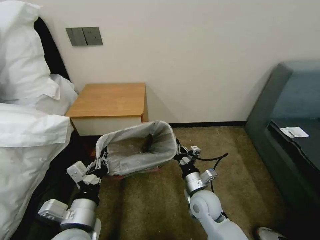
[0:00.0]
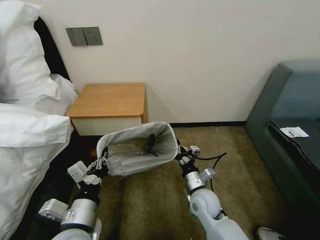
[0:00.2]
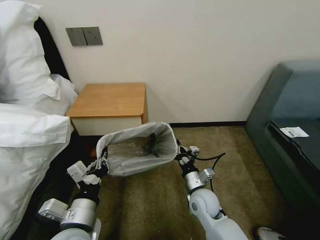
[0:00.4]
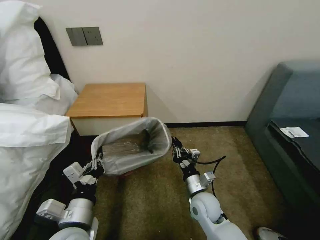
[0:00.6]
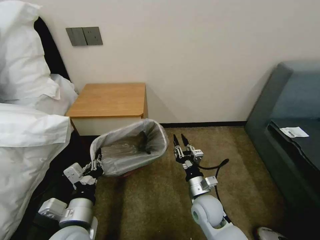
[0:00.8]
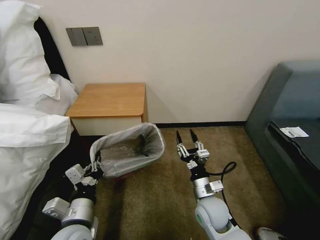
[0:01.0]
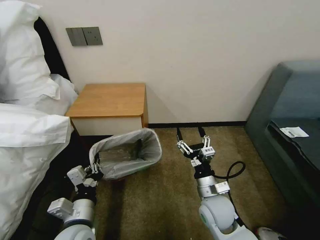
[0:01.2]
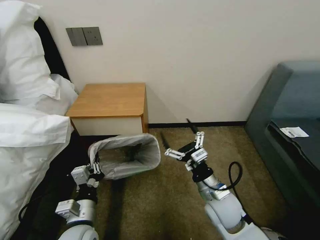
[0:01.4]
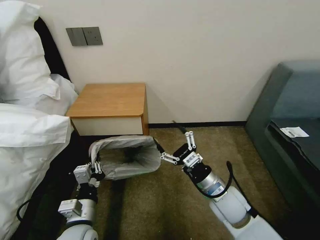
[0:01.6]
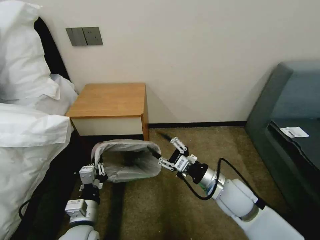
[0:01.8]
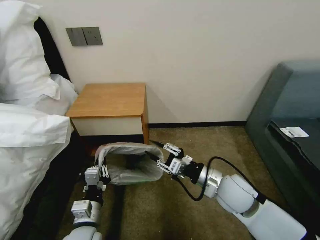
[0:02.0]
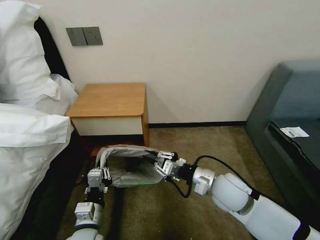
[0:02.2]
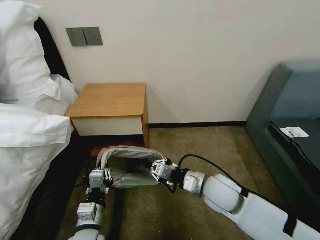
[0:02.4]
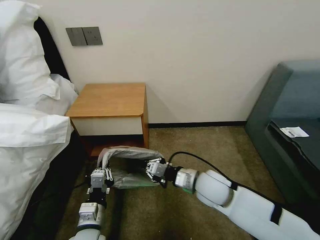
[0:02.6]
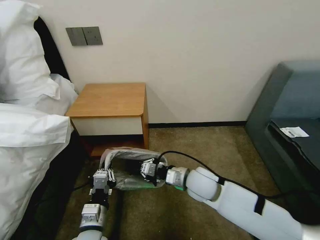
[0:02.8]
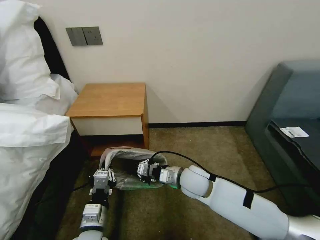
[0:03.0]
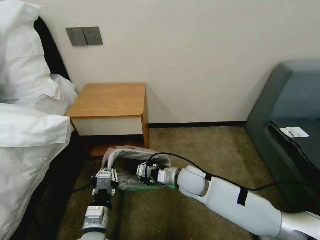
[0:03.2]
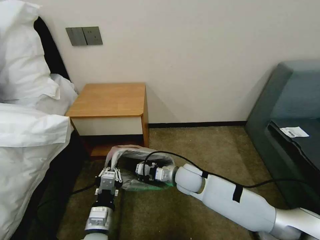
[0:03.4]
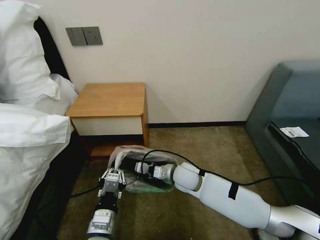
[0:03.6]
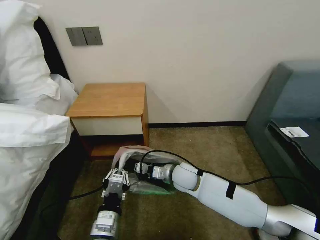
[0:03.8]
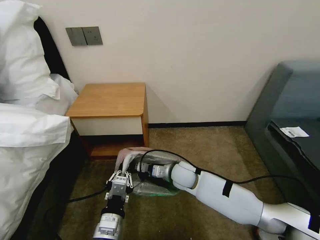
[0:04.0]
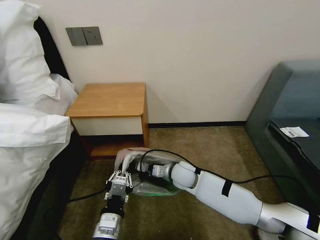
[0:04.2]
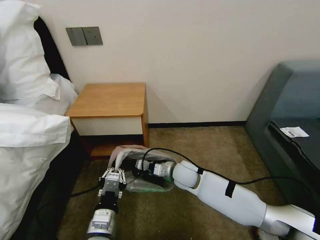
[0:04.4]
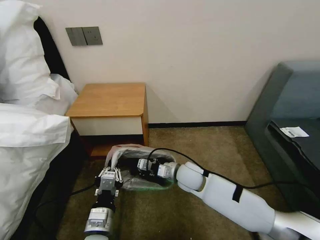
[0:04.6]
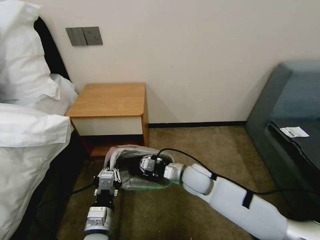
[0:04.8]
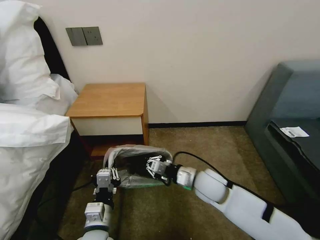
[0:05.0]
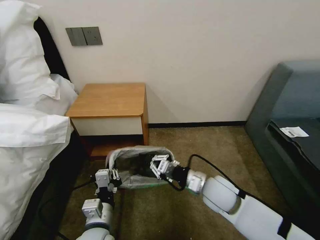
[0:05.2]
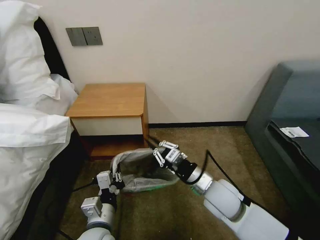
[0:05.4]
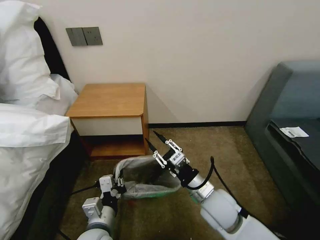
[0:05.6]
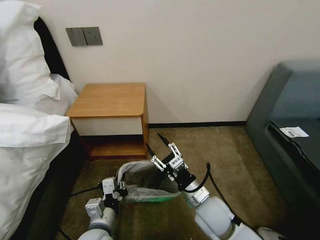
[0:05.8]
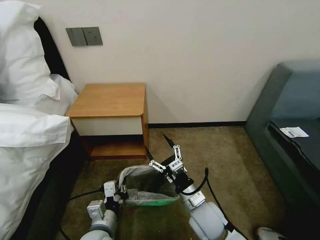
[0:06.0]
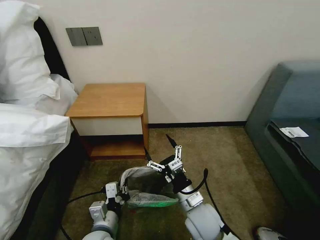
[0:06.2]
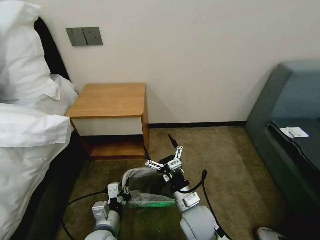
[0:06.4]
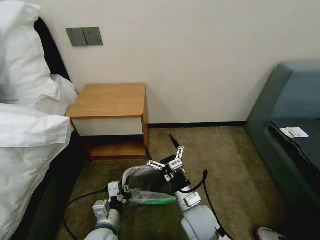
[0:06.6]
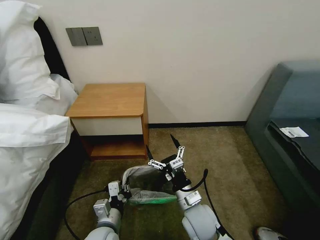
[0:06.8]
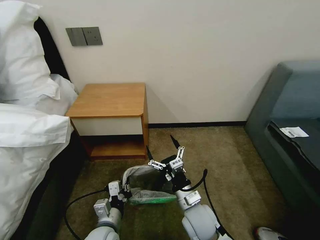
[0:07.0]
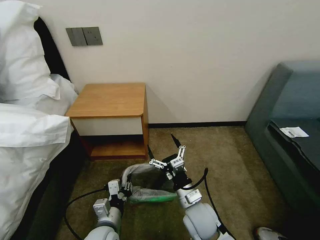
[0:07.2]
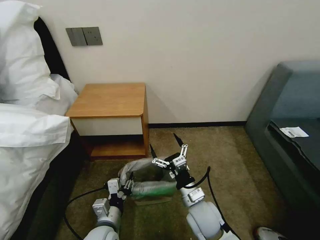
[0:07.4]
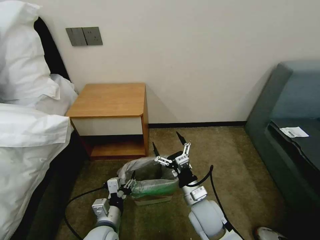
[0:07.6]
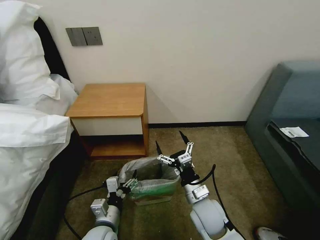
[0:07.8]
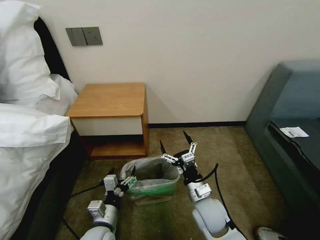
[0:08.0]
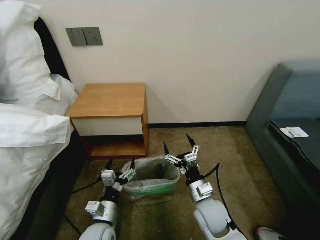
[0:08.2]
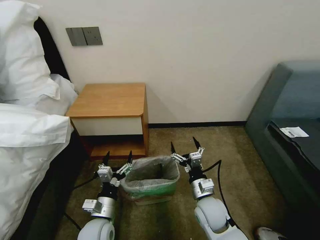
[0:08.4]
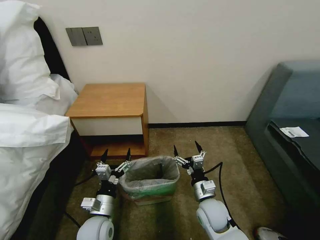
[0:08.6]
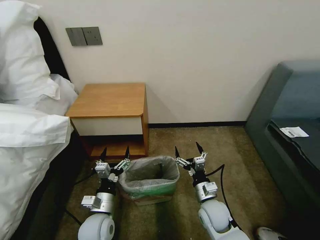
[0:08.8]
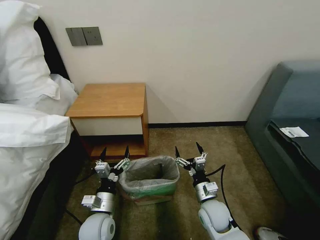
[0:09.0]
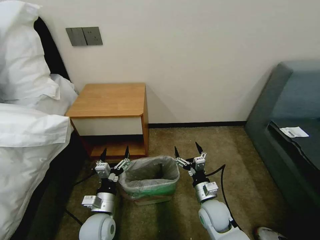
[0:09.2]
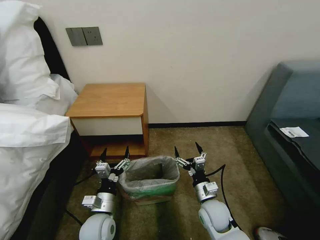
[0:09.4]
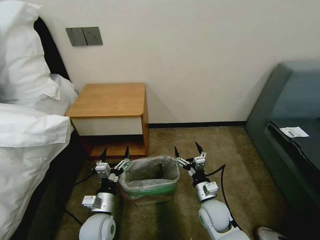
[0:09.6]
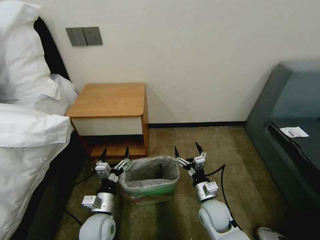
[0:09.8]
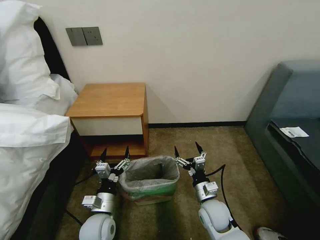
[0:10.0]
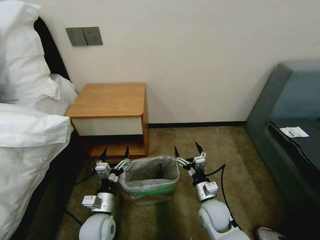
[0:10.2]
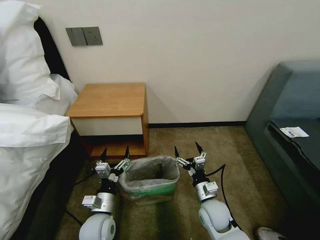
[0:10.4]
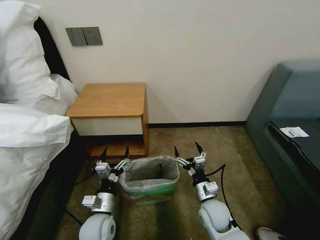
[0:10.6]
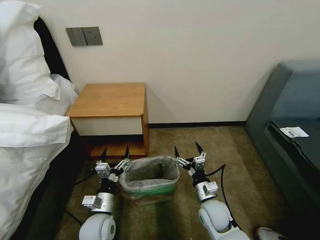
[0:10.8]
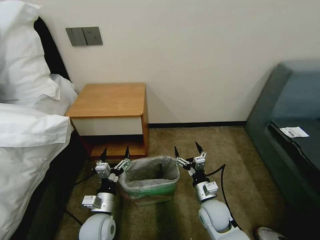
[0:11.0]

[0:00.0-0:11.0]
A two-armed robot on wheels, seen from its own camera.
Task of the whole recording: Pick up the garbage bag from the table and place it over the trash can.
0:00.0 to 0:01.6: The right gripper shifts some 10 cm upward and to the right, and opens up, while the left gripper travels downward by roughly 5 cm.
0:01.6 to 0:03.2: The right gripper heads to the left and forward, covering about 10 cm, and closes its fingers.
0:03.2 to 0:04.8: There are only small adjustments of the grippers.
0:04.8 to 0:06.2: The right gripper shifts some 15 cm backward, and opens.
0:06.2 to 0:07.8: The left gripper opens.
0:07.8 to 0:09.4: The right gripper moves downward, approximately 5 cm.
0:09.4 to 0:11.0: Neither gripper changes place.

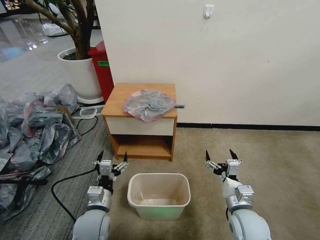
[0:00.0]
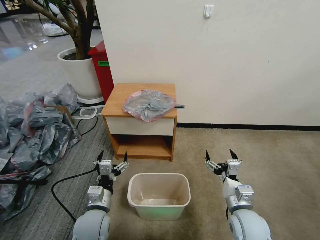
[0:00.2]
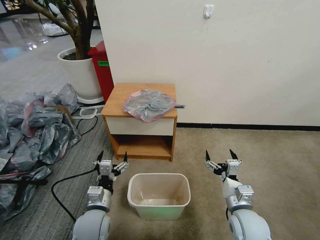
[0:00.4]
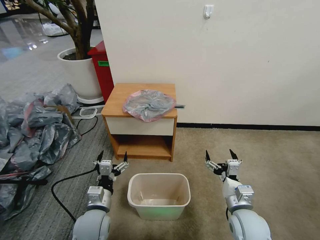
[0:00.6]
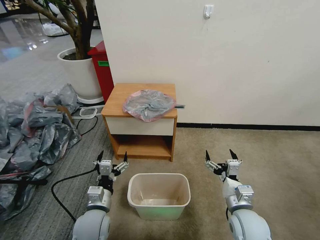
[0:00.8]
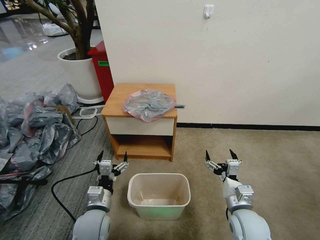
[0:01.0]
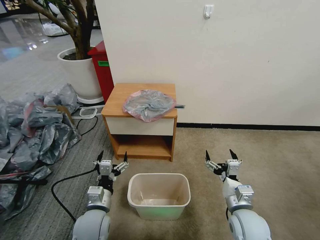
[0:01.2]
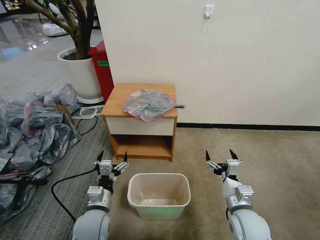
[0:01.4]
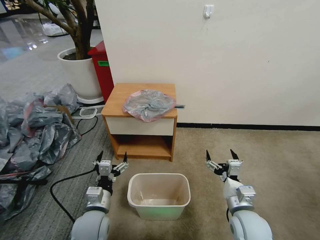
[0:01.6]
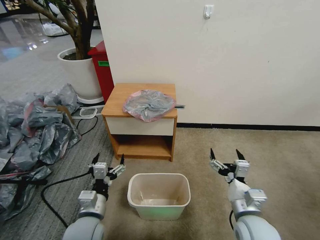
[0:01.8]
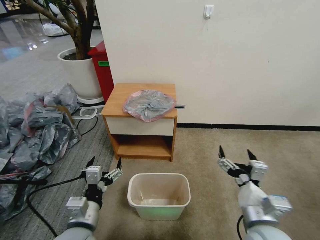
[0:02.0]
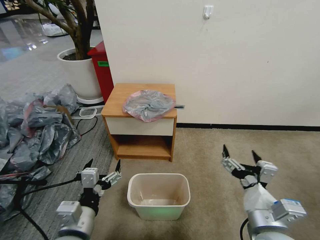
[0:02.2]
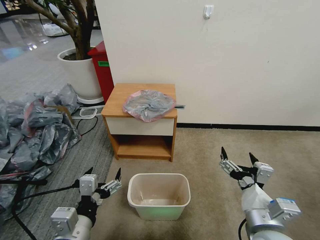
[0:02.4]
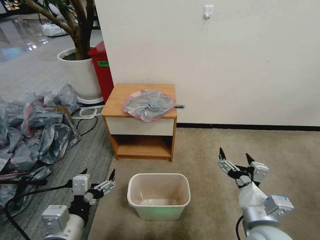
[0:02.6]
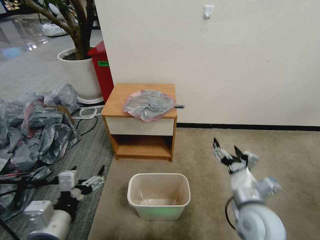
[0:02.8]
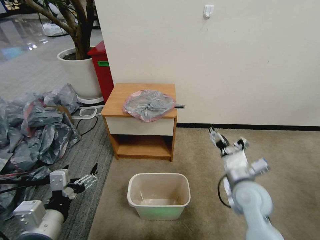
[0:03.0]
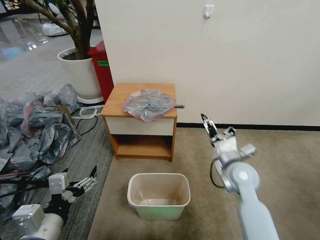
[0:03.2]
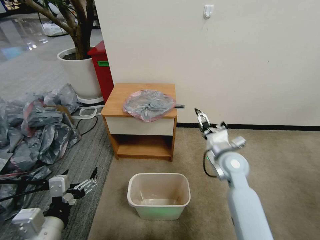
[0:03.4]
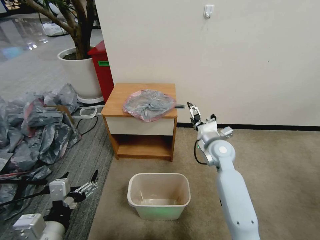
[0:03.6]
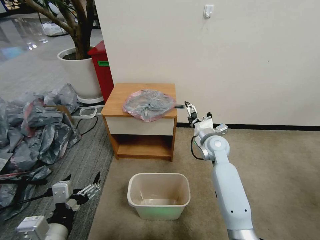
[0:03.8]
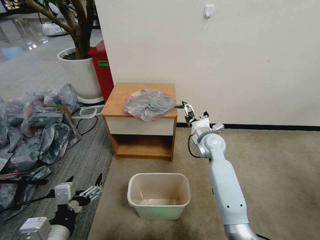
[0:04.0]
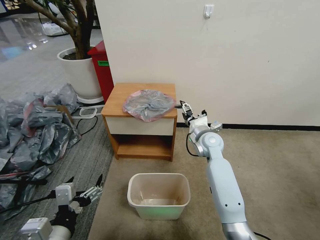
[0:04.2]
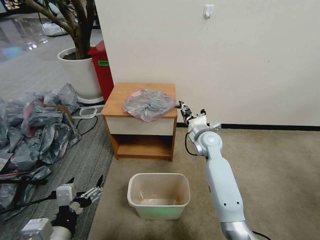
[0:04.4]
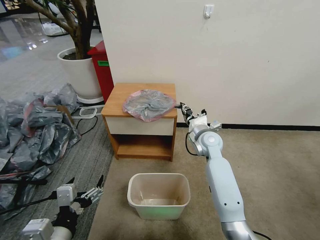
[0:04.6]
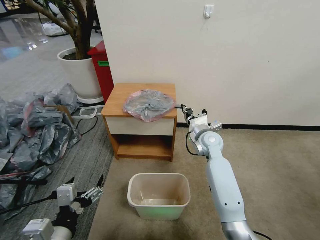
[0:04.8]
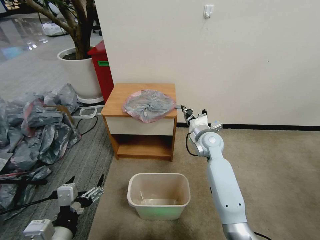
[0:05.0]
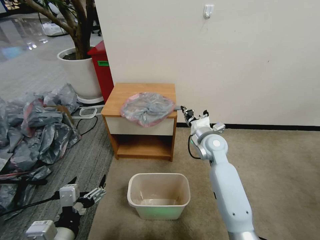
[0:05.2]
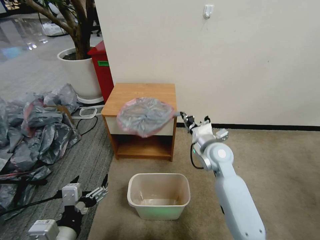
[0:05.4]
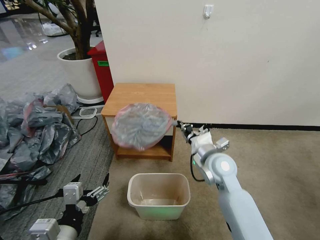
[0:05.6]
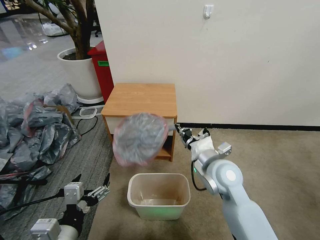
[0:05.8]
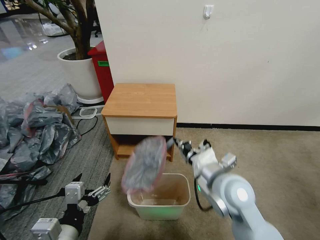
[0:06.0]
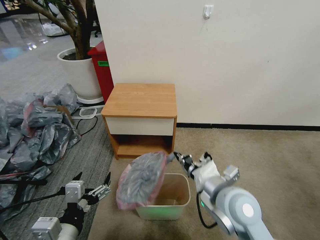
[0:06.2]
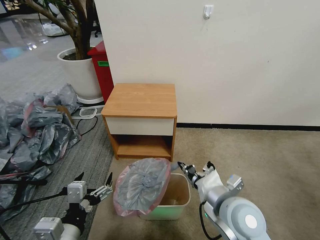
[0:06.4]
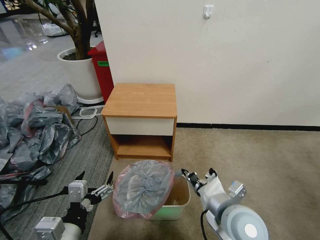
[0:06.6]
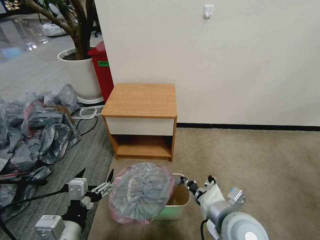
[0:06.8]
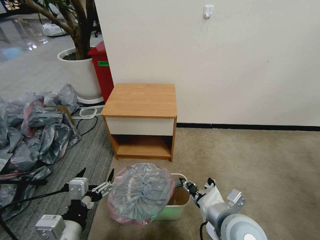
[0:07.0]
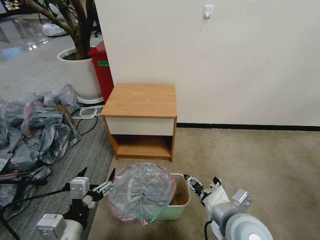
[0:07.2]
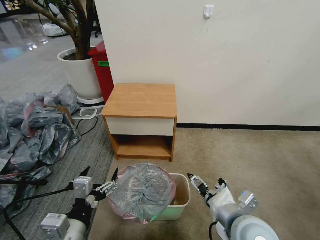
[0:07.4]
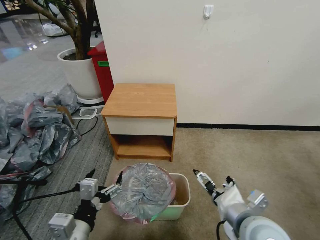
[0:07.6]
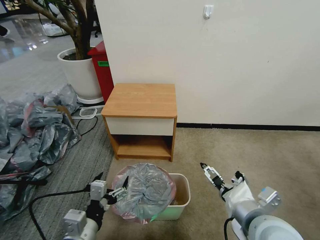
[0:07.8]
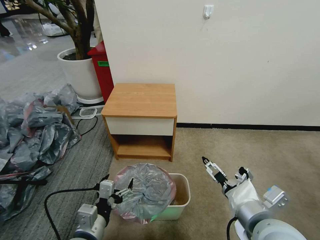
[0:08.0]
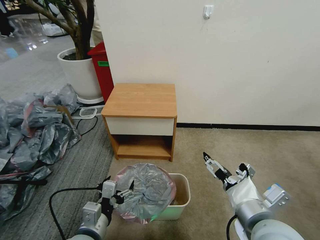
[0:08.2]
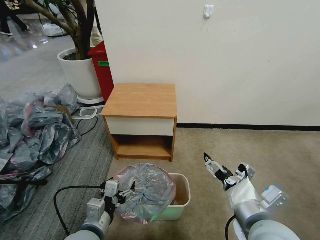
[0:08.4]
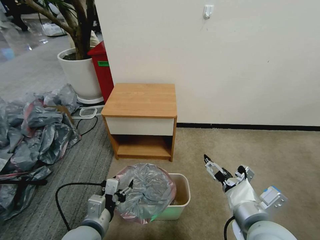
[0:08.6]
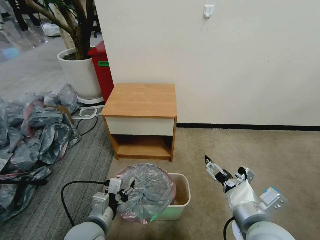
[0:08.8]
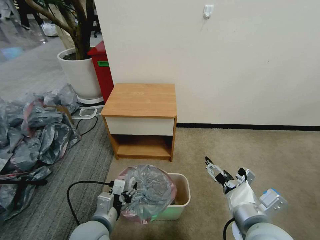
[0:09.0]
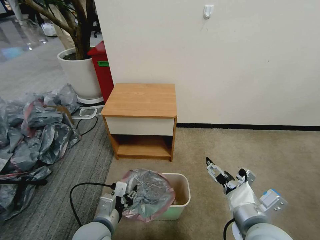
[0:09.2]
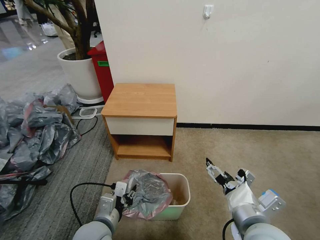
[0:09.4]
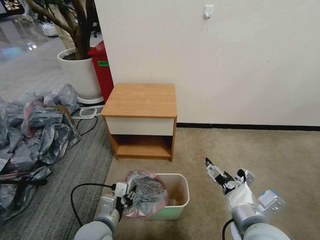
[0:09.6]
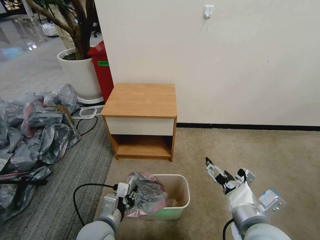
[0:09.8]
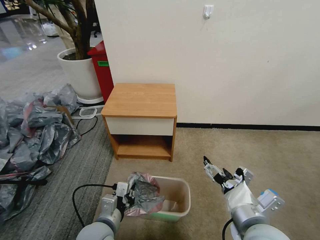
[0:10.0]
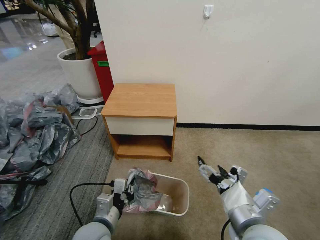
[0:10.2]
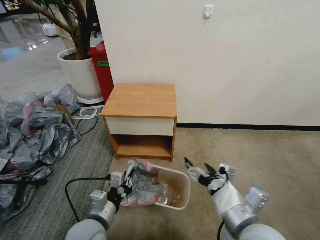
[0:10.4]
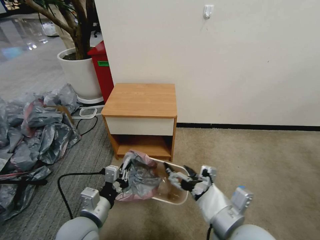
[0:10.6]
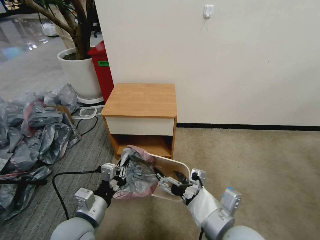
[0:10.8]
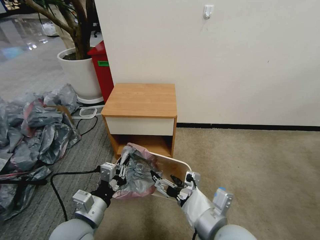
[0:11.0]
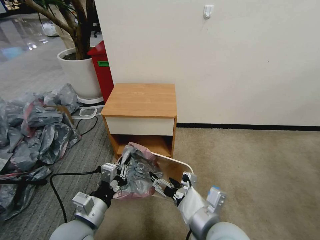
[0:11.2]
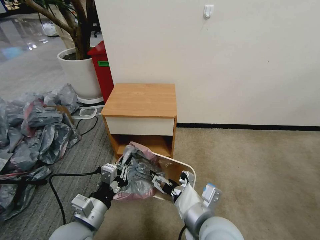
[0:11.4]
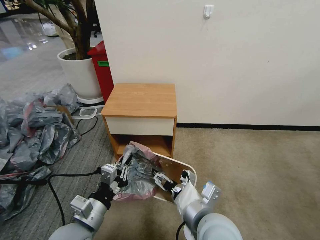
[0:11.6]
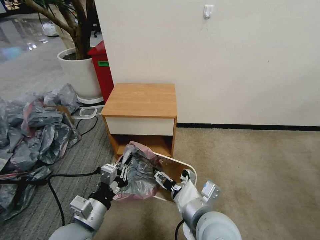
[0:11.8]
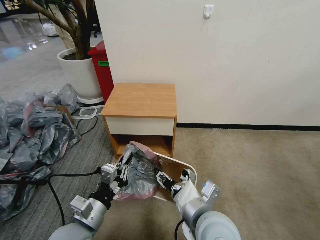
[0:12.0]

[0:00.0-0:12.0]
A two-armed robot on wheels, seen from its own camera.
Task of the whole recording: Pick up the garbage bag from the table and place it over the trash can.
0:01.6 to 0:03.0: The left gripper heads upward, backward and to the left, covering about 20 cm. Meanwhile the right gripper goes roughly 5 cm upward.
0:03.0 to 0:04.4: The right gripper travels forward by roughly 20 cm, and closes.
0:04.4 to 0:06.0: The right gripper moves backward, approximately 20 cm, and closes up.
0:06.0 to 0:07.6: The right gripper moves backward, roughly 10 cm, and opens its fingers.
0:07.6 to 0:09.0: The left gripper heads downward and forward, covering approximately 10 cm, and closes.
0:09.0 to 0:10.4: The left gripper closes its fingers.
0:10.4 to 0:12.0: The right gripper shifts roughly 10 cm to the left.
